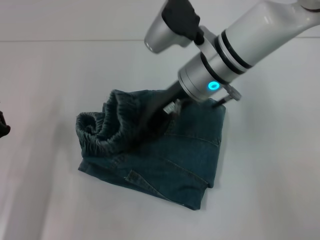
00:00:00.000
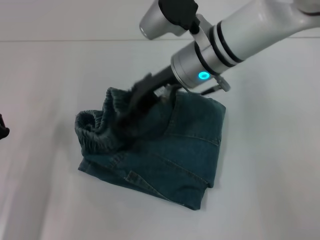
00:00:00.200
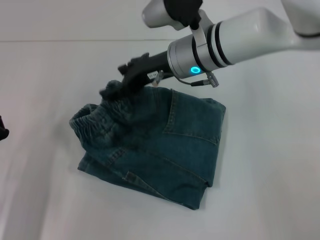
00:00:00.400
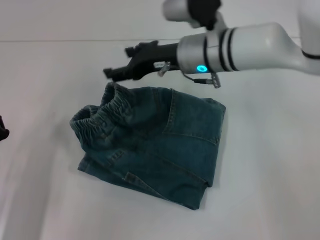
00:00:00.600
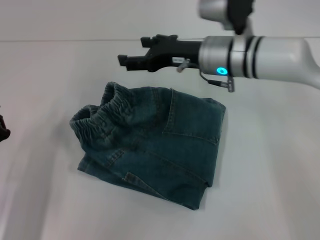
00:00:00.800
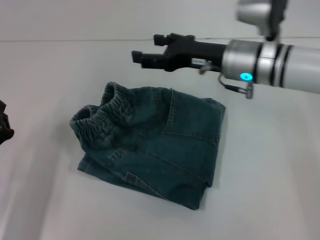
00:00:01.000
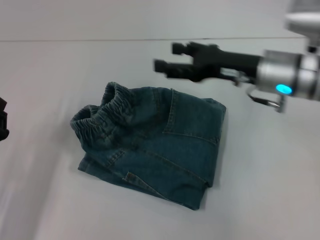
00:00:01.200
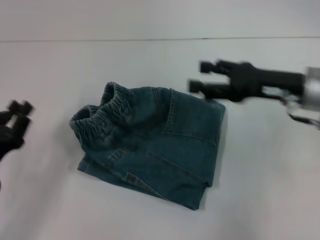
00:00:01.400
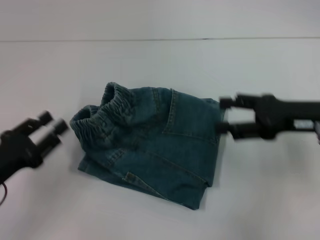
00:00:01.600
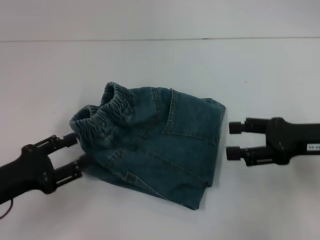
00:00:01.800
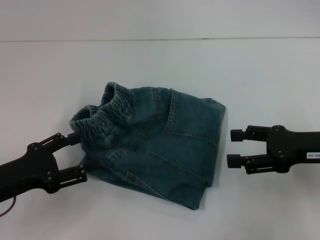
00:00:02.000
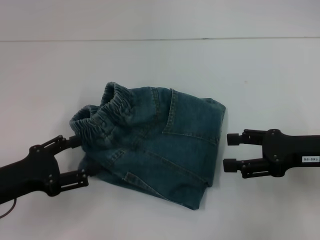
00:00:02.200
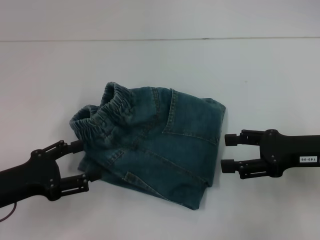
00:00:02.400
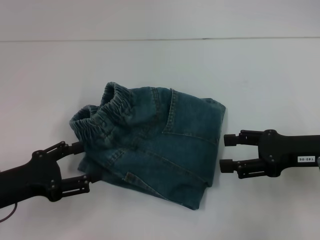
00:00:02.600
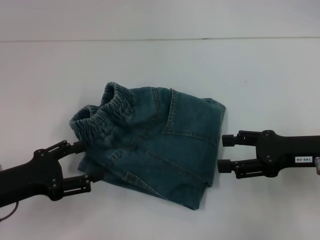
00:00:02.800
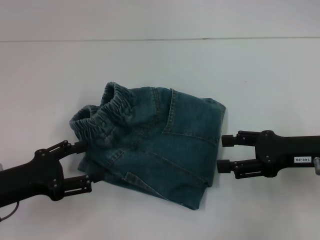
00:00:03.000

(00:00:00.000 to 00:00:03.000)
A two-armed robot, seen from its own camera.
00:00:00.000 - 00:00:01.600: The right gripper goes roughly 20 cm to the right.
00:00:01.600 - 00:00:03.000: The left gripper opens its fingers.
